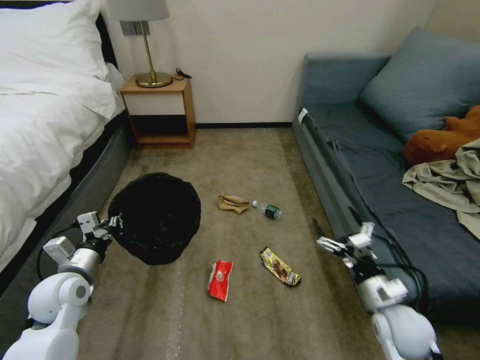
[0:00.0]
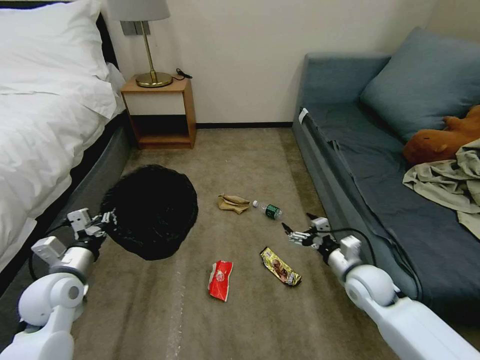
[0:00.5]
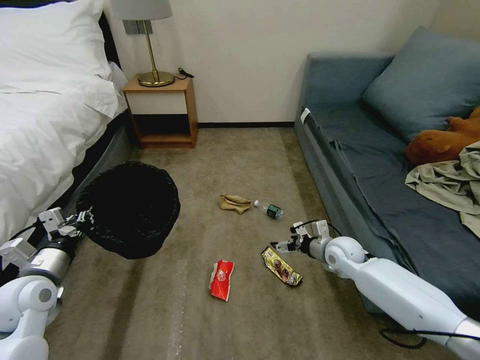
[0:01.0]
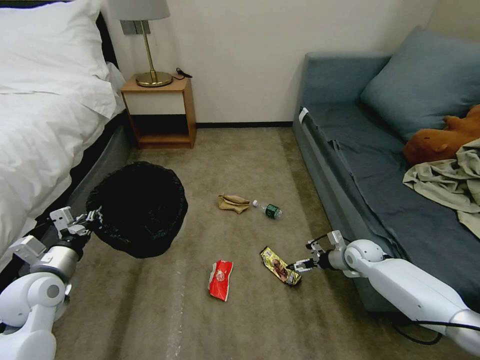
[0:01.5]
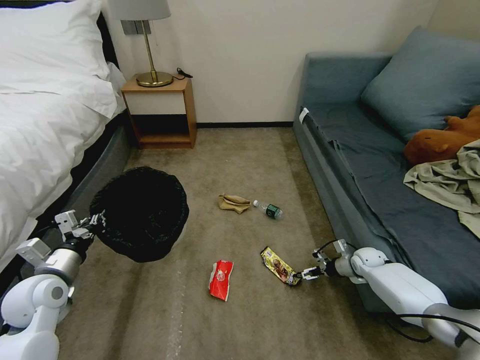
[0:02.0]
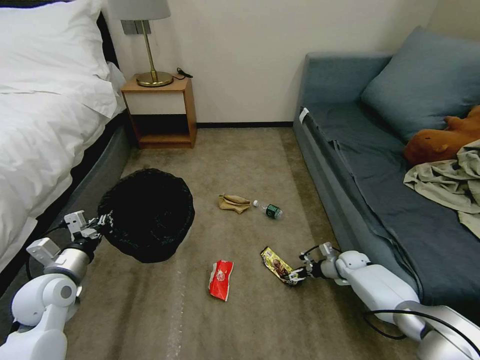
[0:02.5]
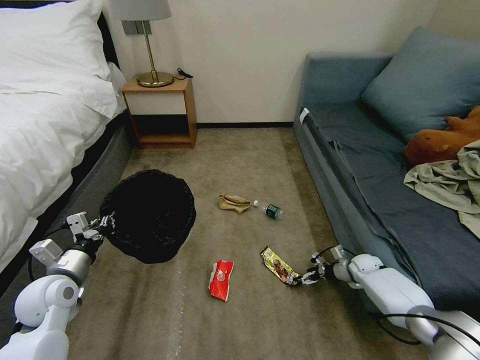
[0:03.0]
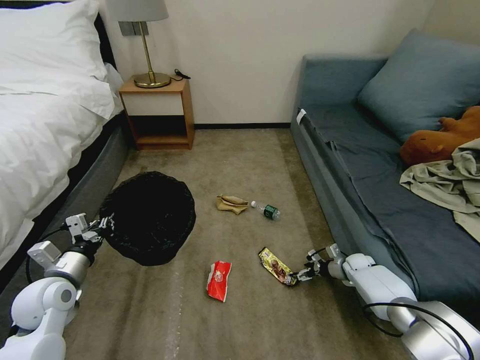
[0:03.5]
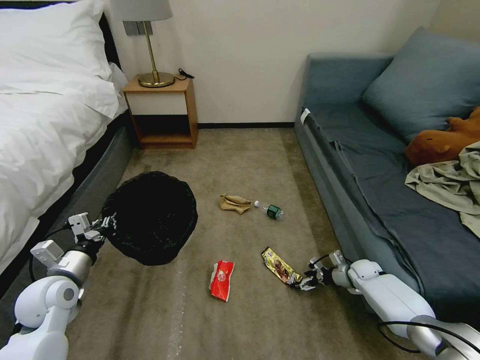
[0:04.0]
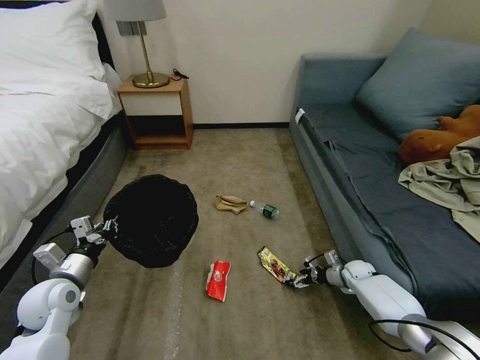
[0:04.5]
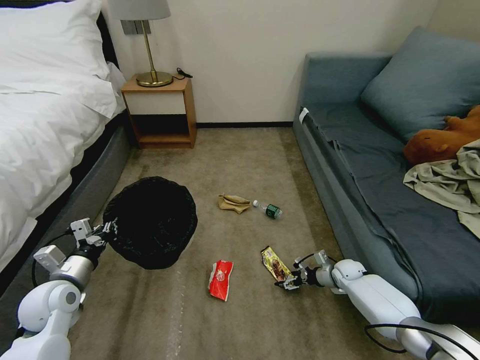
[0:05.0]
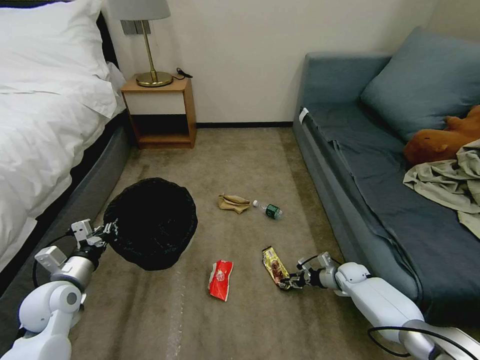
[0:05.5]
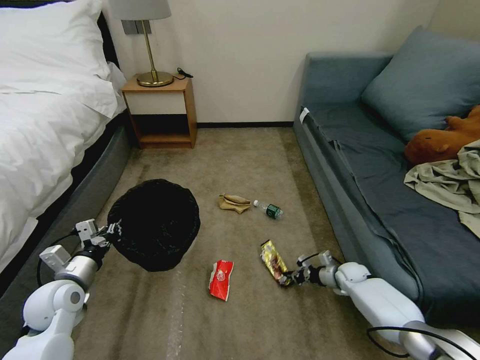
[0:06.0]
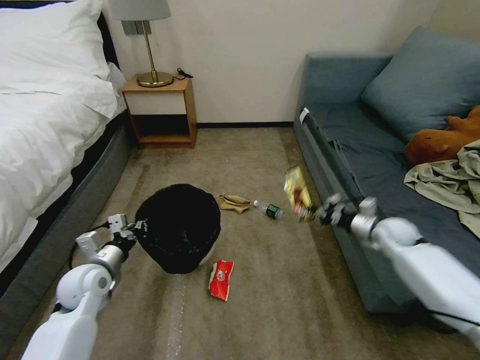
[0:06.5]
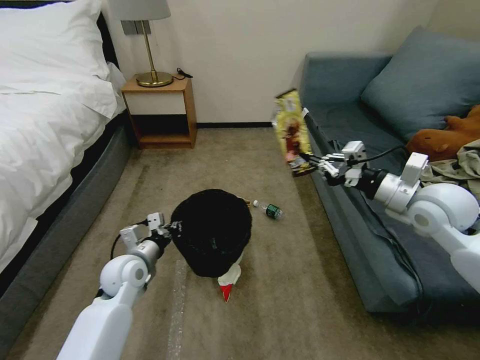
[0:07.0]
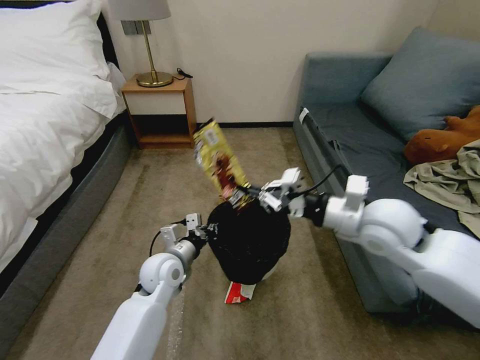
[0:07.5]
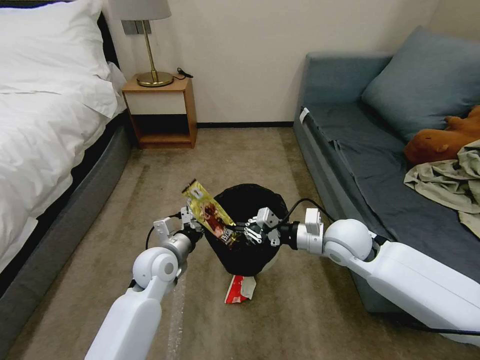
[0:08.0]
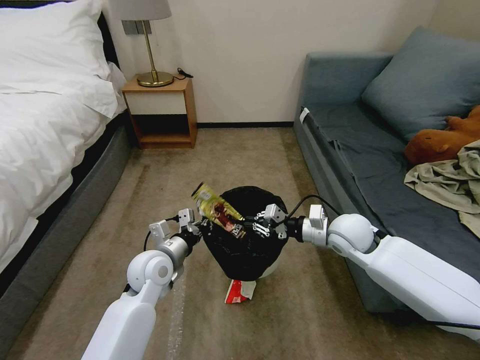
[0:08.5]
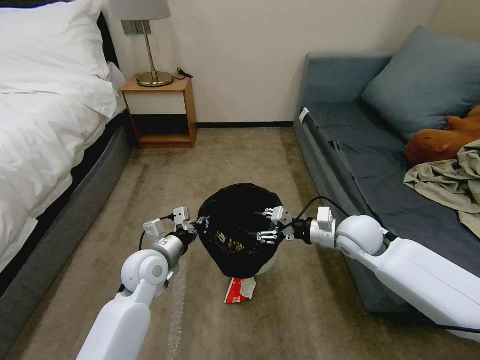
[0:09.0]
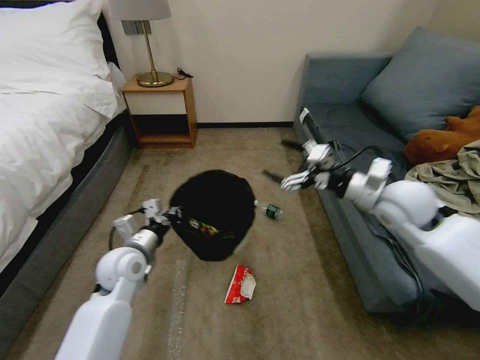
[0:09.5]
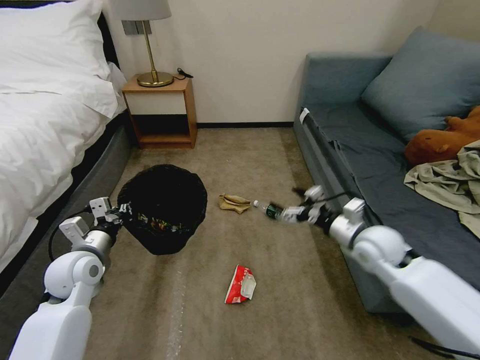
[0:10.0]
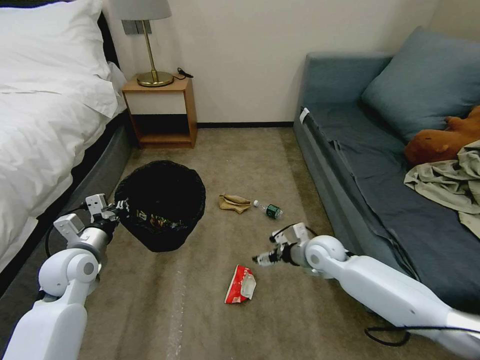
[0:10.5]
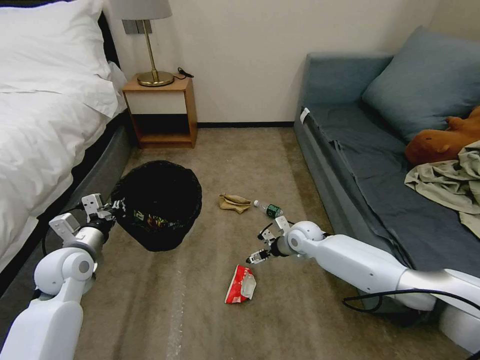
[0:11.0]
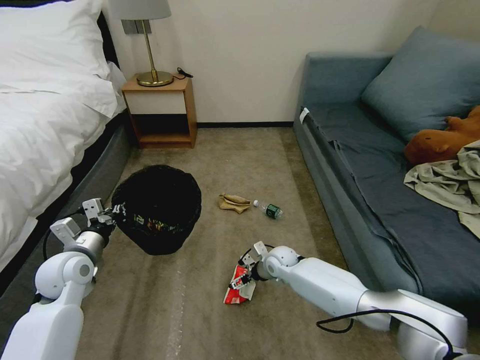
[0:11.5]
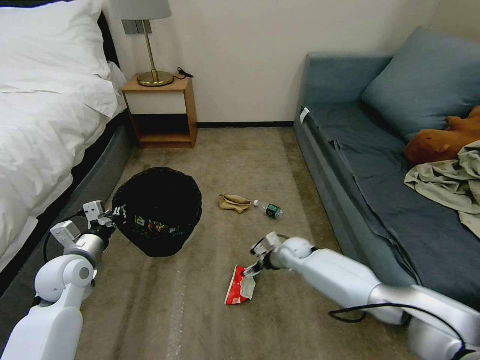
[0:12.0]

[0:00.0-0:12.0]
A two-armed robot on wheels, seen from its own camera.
Task of the whole recording: Pick up the trash bin, then pick up the garbage on the floor and place it into the trash bin.
0:00.0 to 0:02.0: The right gripper goes roughly 25 cm forward and downward.
0:02.0 to 0:04.0: The right gripper ends up roughly 5 cm from where it was.
0:04.0 to 0:06.0: The right gripper closes its fingers.
0:06.0 to 0:08.0: The right gripper goes approximately 30 cm upward and to the left. The left gripper goes some 20 cm to the right.
0:08.0 to 0:10.0: The right gripper heads to the right, covering about 5 cm, goes upward and returns, about 10 cm each way, and opens up; the left gripper goes about 15 cm to the left.
0:10.0 to 0:12.0: The right gripper shifts approximately 25 cm downward, to the left and forward.

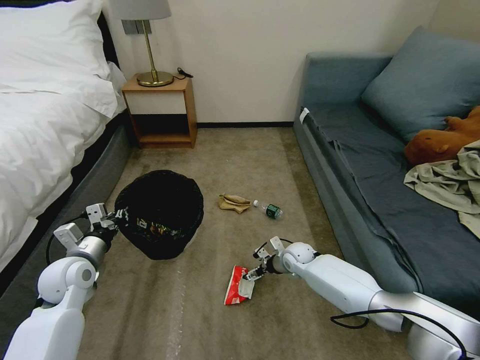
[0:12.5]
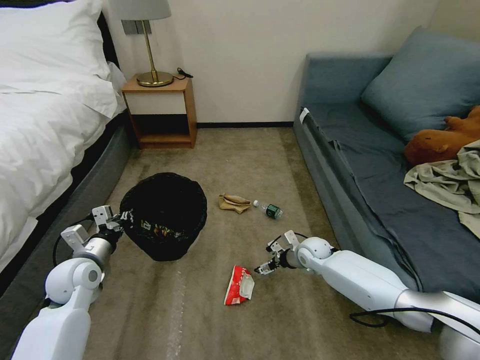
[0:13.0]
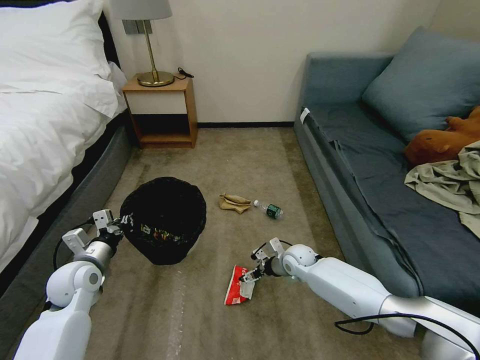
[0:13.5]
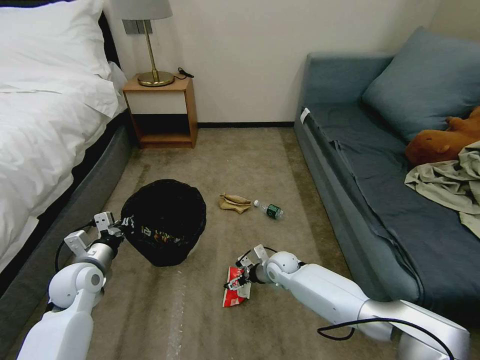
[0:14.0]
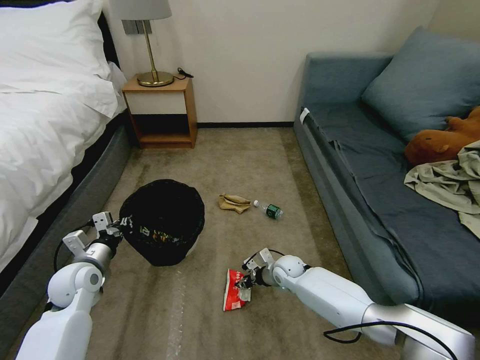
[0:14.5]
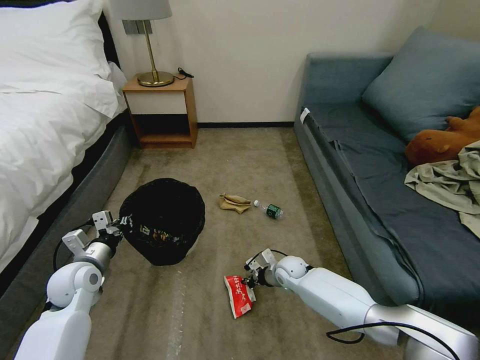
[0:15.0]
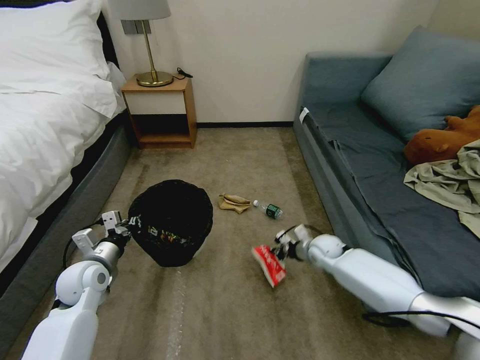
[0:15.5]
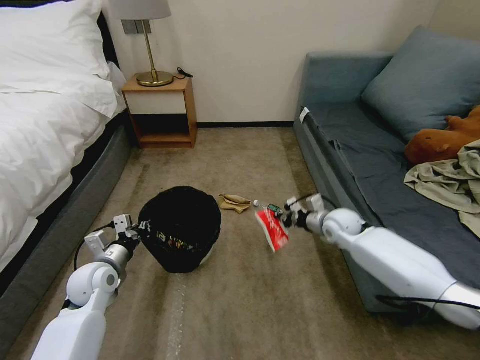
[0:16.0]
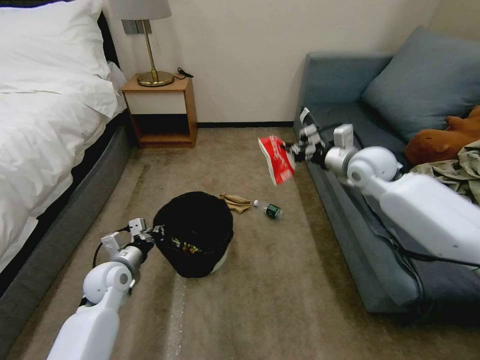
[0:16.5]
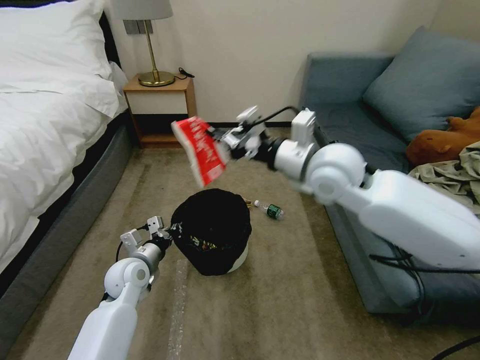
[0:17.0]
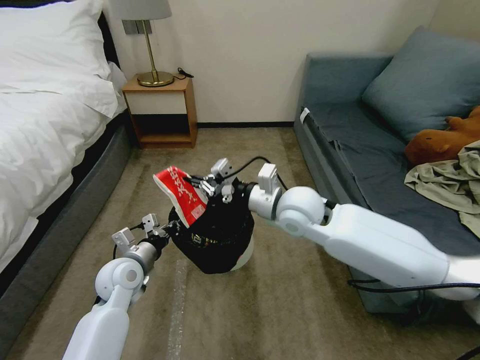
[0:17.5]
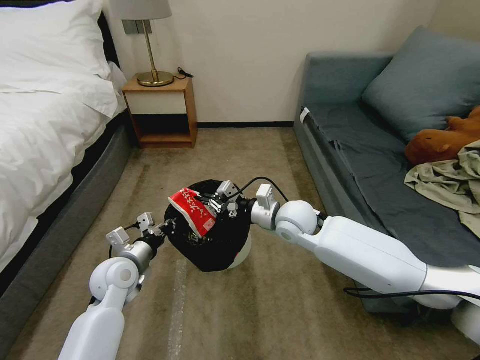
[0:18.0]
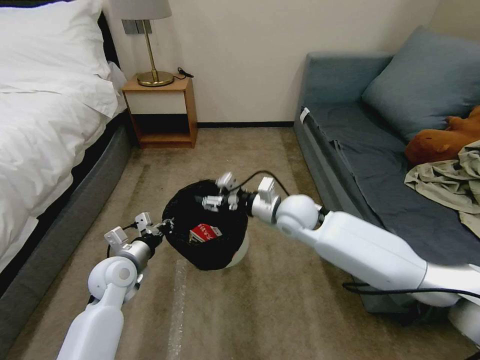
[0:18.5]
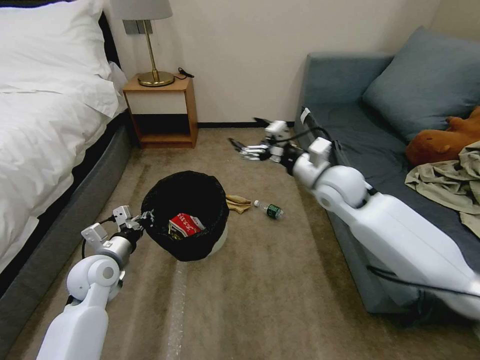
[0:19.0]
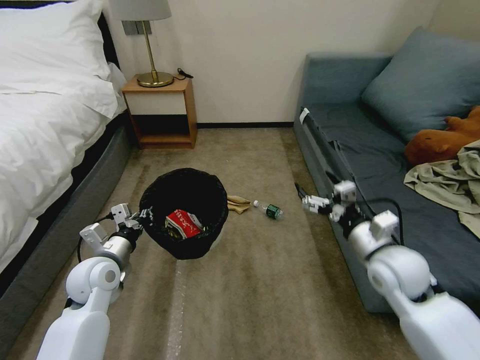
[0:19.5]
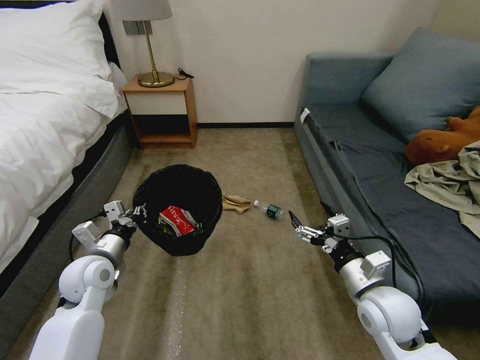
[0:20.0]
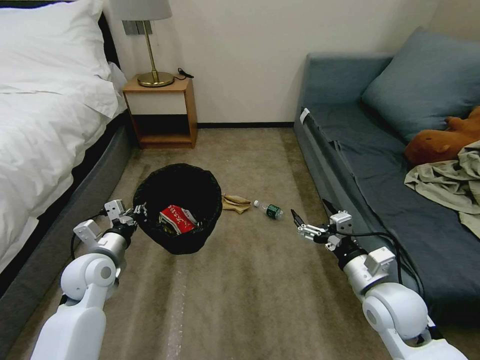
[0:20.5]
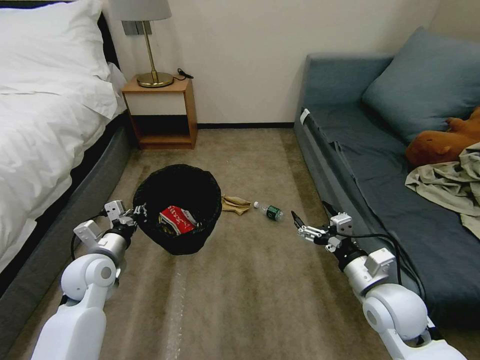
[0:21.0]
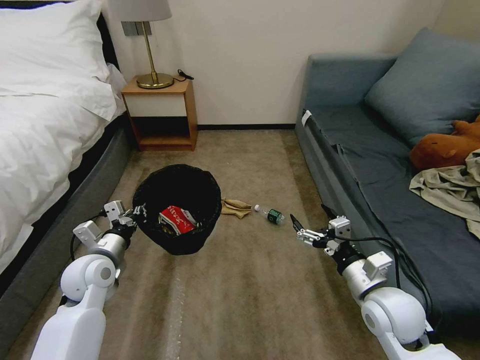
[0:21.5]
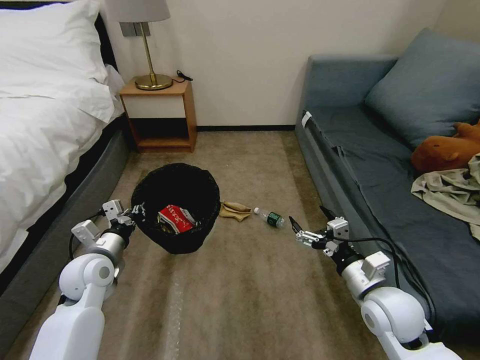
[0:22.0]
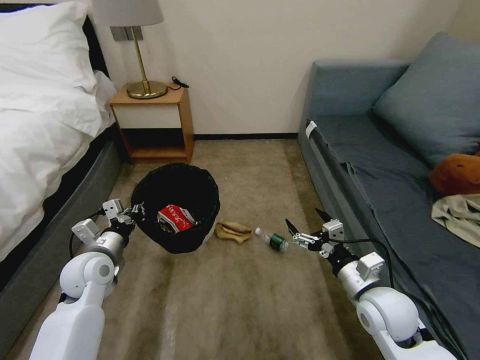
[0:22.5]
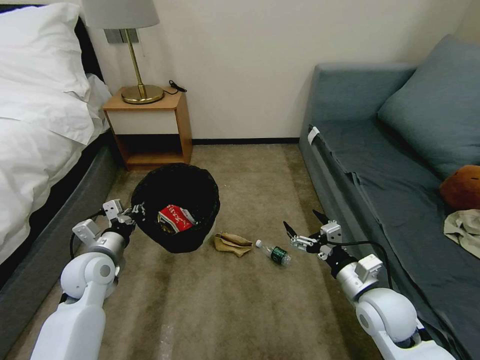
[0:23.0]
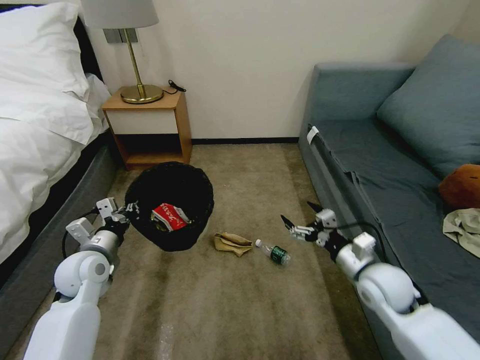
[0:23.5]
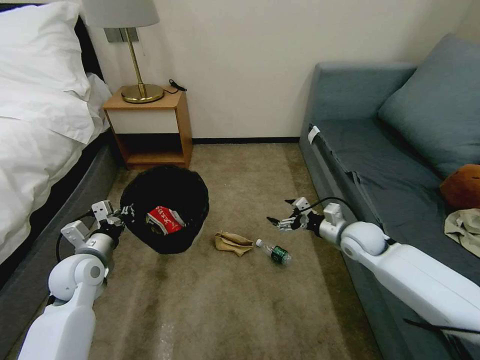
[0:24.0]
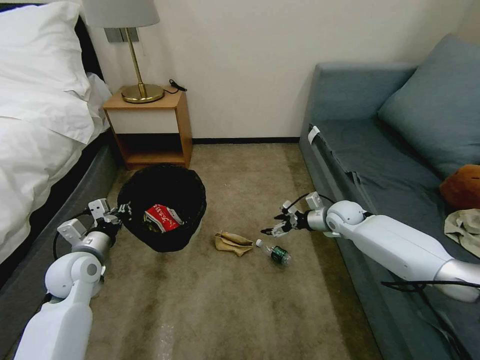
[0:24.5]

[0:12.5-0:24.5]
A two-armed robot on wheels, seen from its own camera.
Task of the whole recording: Pick up the trash bin, then pick up the garbage on the floor and place it into the trash bin.
0:12.5 to 0:14.5: The right gripper moves about 5 cm, and closes.
0:14.5 to 0:16.5: The left gripper travels to the right by some 5 cm. The right gripper travels upward by some 35 cm, and closes up.
0:16.5 to 0:18.5: The right gripper moves to the left, downward and backward, roughly 20 cm, and opens up.
0:18.5 to 0:20.5: The right gripper moves backward and to the right, about 25 cm, and opens up.
0:22.5 to 0:24.5: The right gripper heads forward, covering roughly 25 cm.

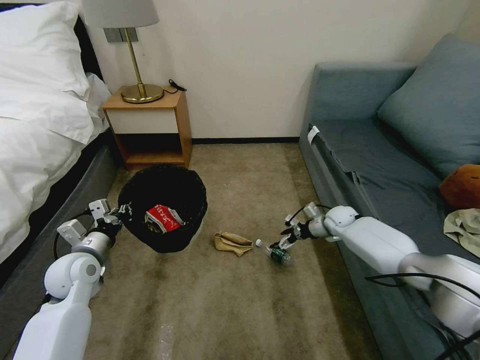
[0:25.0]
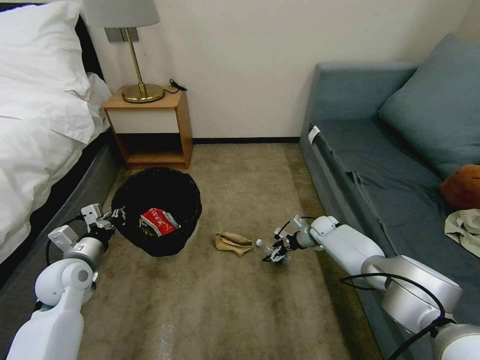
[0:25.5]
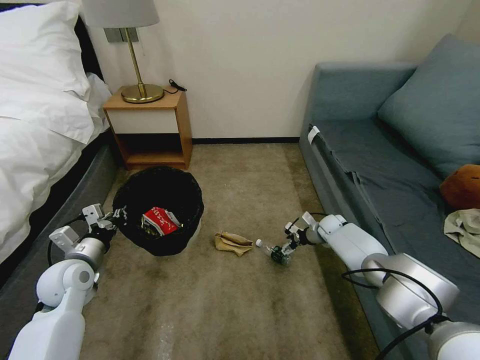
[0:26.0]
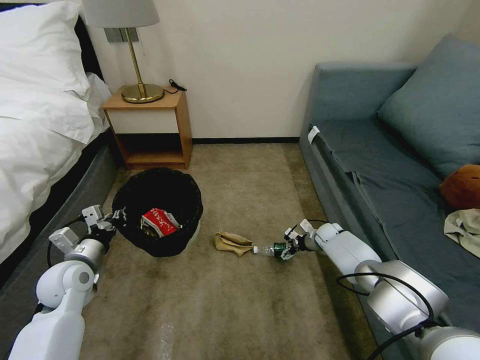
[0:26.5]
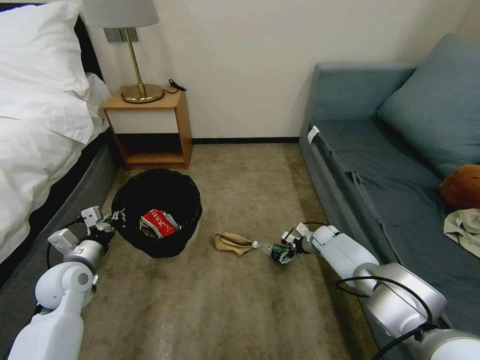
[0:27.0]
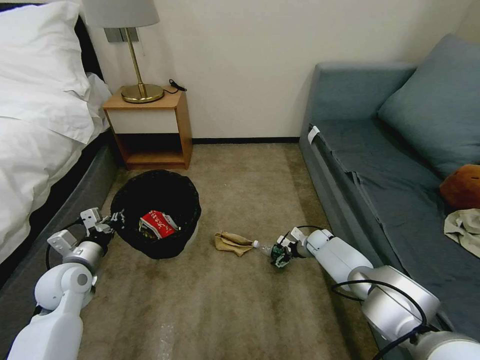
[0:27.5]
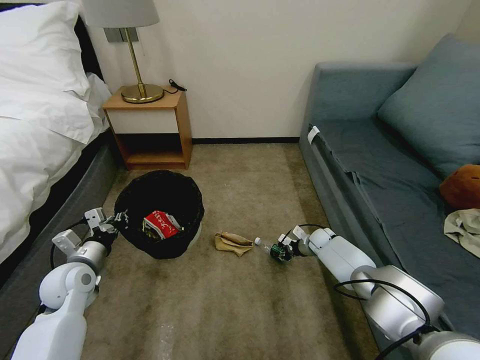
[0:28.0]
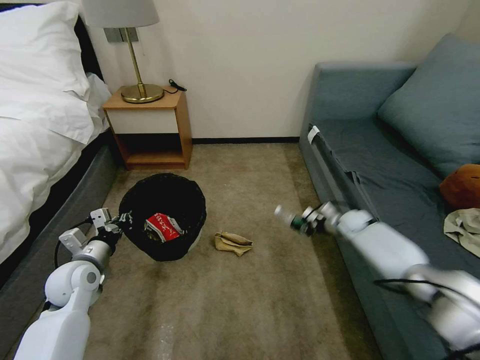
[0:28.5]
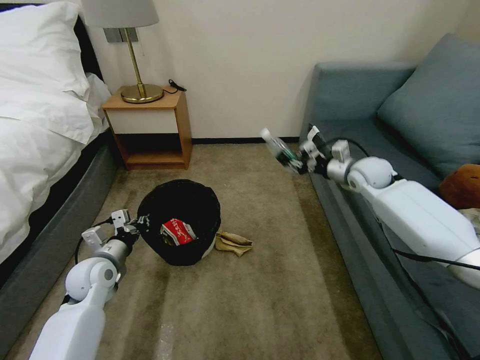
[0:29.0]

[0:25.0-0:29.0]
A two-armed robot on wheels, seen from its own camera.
Task of the whole recording: Pick up the trash bin, then pick up the garbage on the floor and place it into the trash bin.
0:25.0 to 0:27.0: The right gripper moves downward, approximately 10 cm.
0:27.0 to 0:29.0: The right gripper goes roughly 30 cm upward, and closes its fingers.
